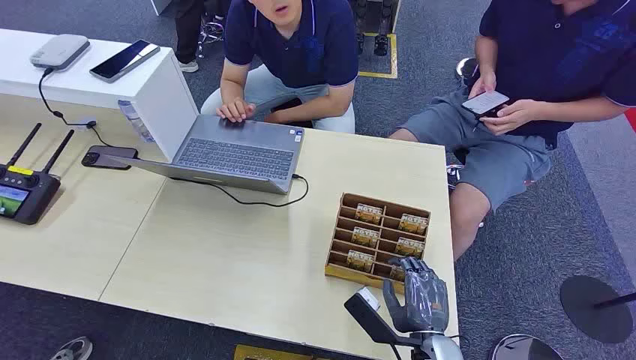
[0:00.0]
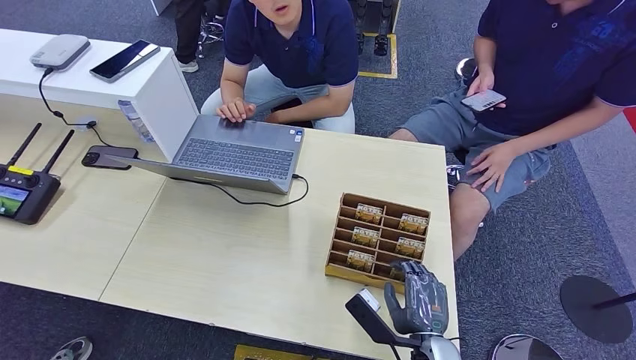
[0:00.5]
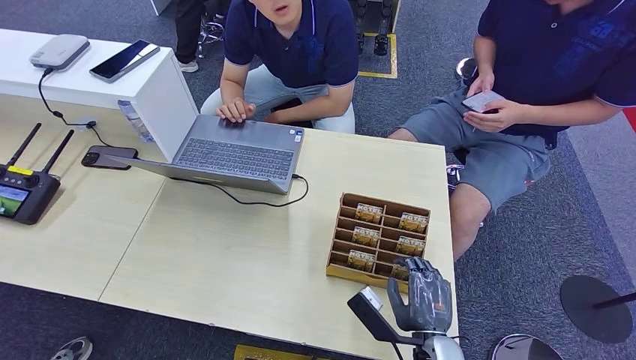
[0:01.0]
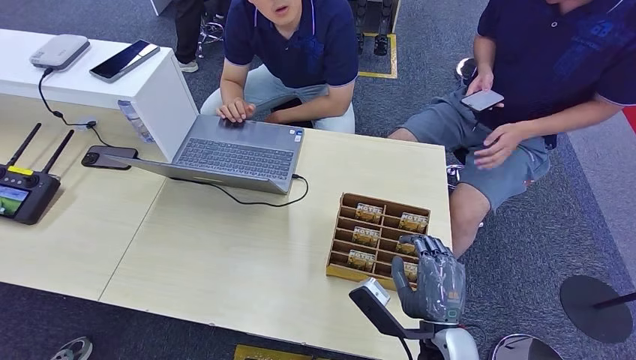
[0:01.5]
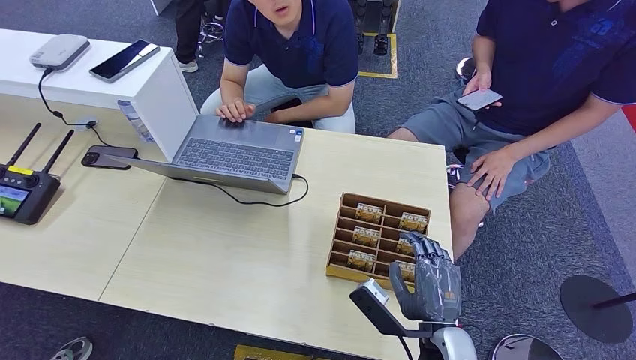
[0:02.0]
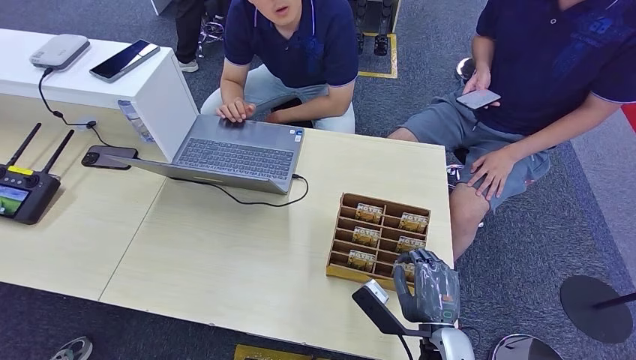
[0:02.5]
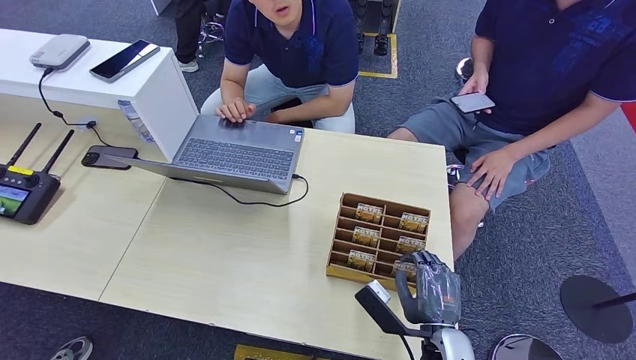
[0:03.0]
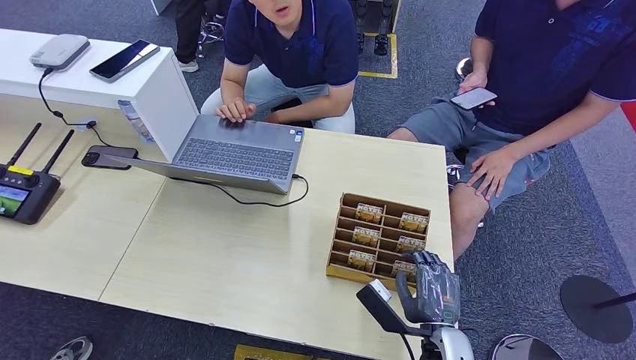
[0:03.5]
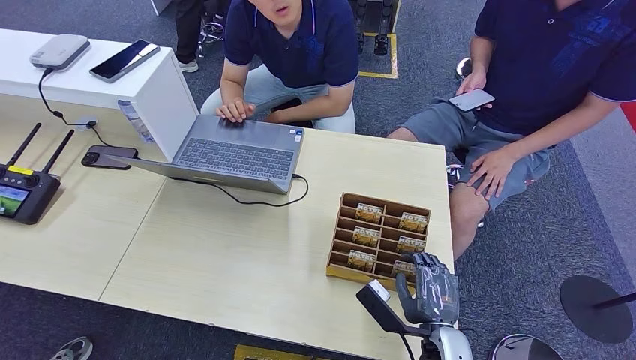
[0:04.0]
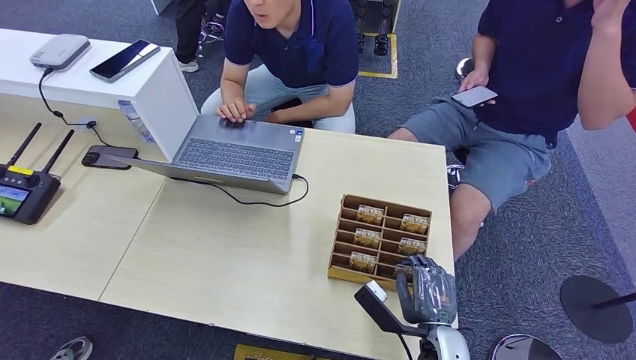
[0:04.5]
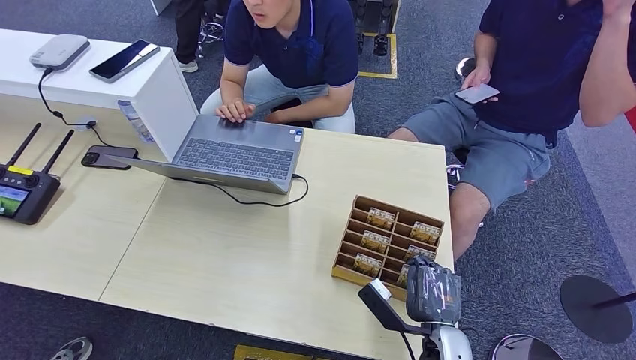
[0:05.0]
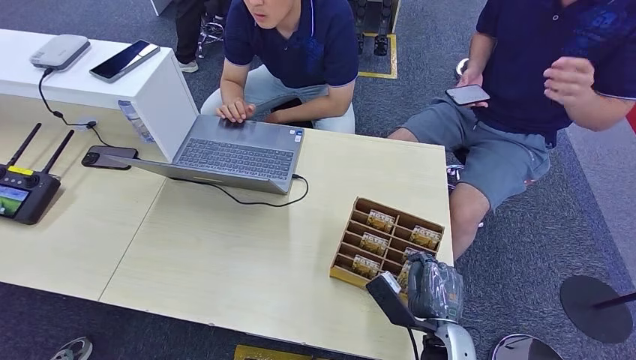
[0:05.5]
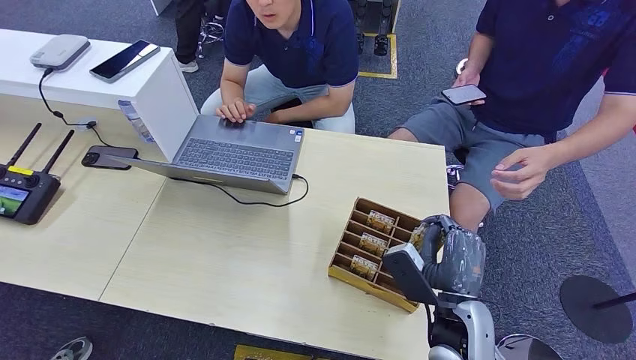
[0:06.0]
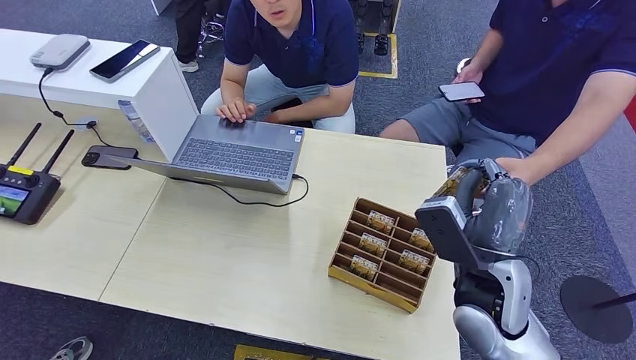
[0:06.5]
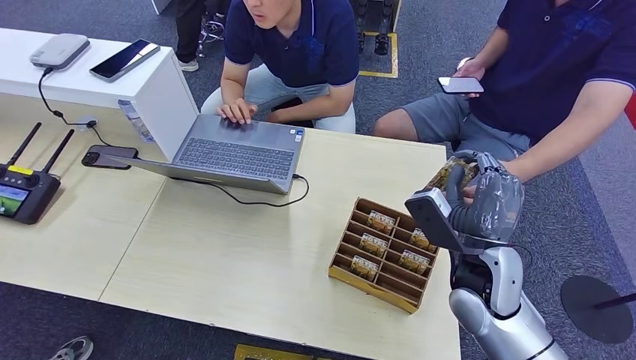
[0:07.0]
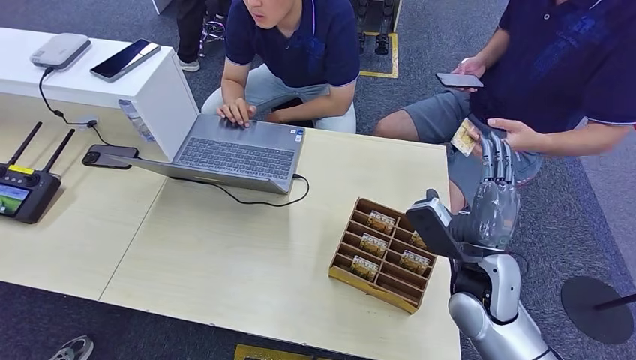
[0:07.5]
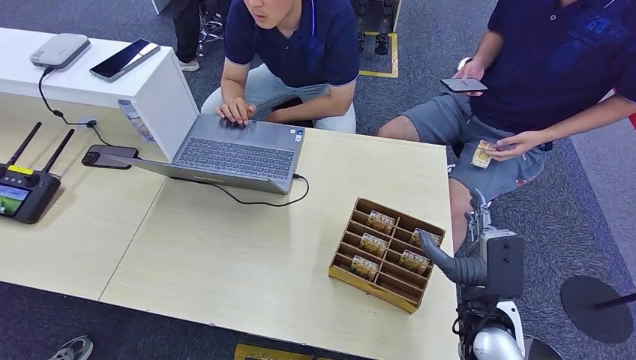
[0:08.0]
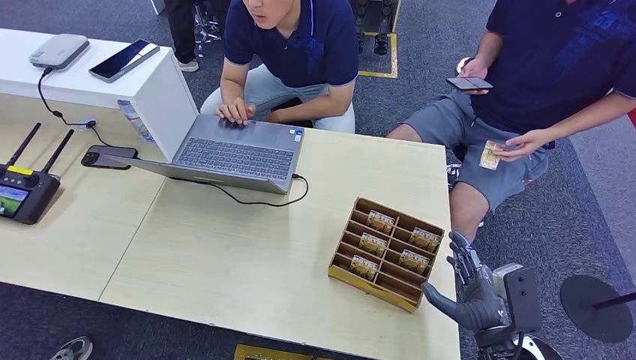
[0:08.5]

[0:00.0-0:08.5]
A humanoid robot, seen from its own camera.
Step, 0:00.0 to 0:06.5: Pick up the room card from the card holder.
Step, 0:07.0 to 0:08.5: Hand the room card to the target.
0:02.0 to 0:04.0: The right hand moves about 5 cm.
0:04.0 to 0:06.5: The right hand is displaced upward and forward by some 15 cm.
0:06.5 to 0:08.5: The right hand shifts roughly 15 cm downward, backward and to the right.
